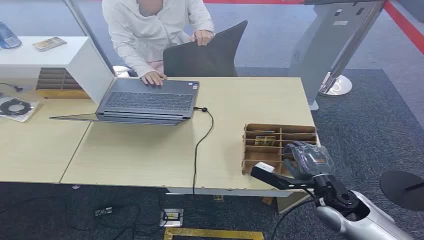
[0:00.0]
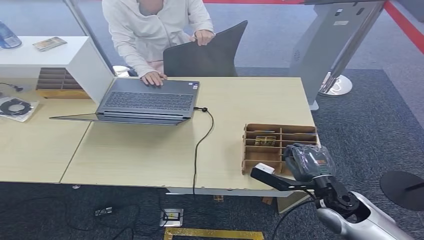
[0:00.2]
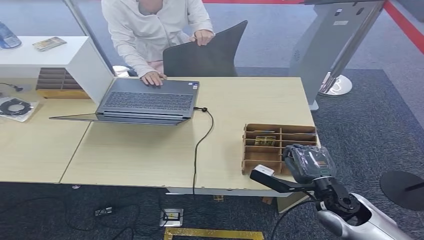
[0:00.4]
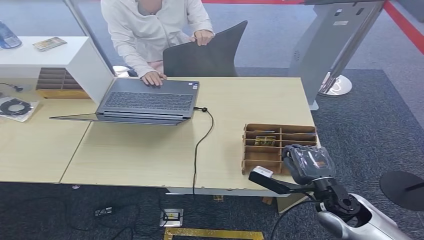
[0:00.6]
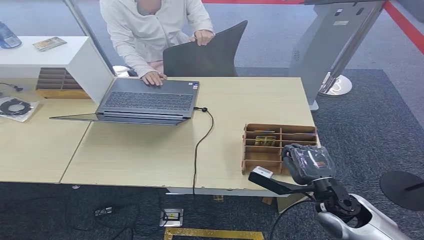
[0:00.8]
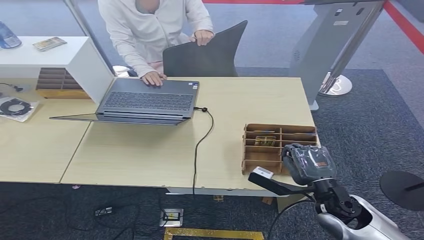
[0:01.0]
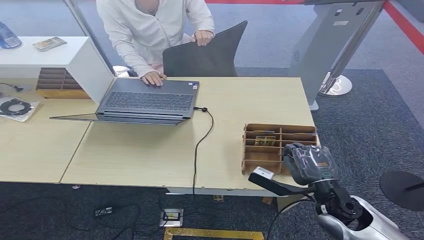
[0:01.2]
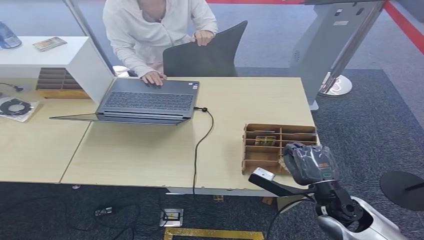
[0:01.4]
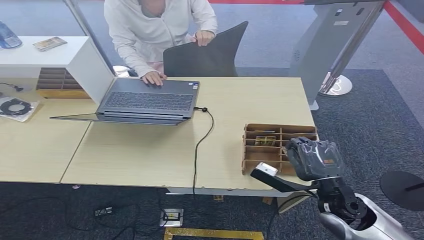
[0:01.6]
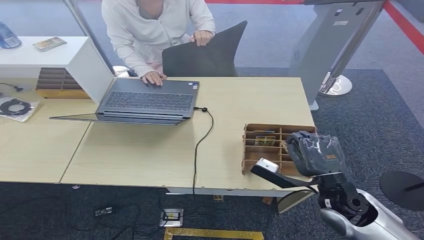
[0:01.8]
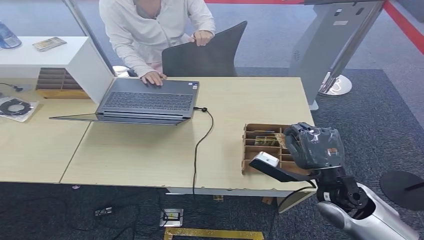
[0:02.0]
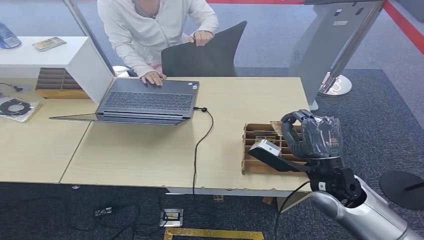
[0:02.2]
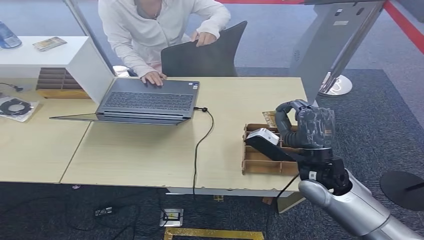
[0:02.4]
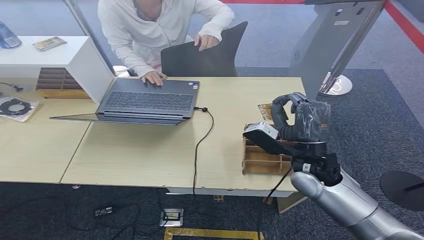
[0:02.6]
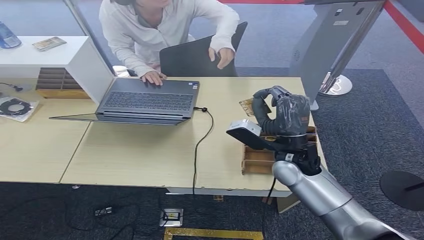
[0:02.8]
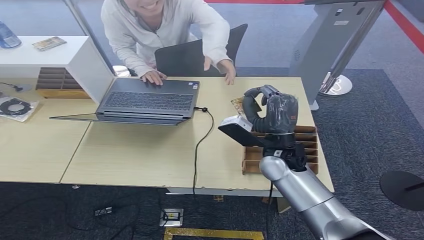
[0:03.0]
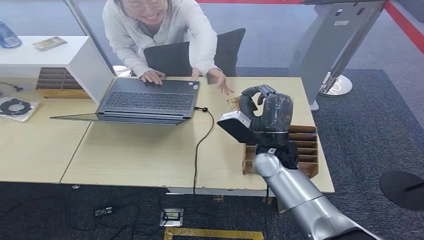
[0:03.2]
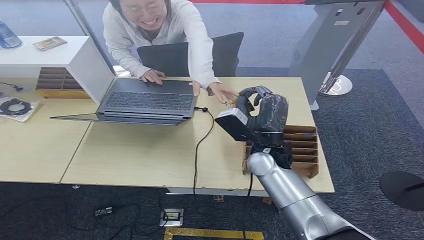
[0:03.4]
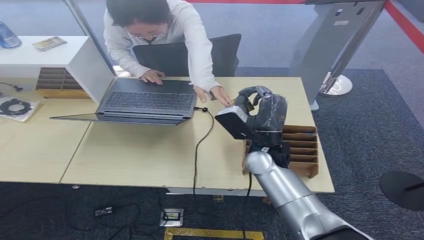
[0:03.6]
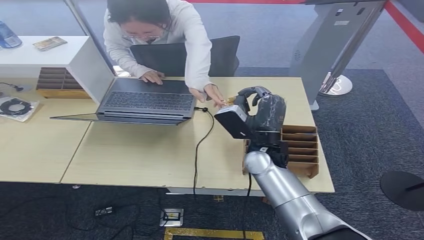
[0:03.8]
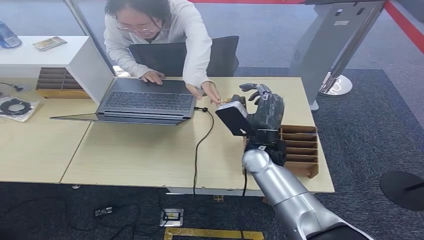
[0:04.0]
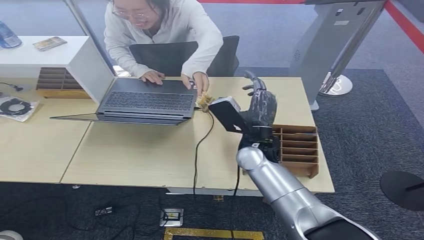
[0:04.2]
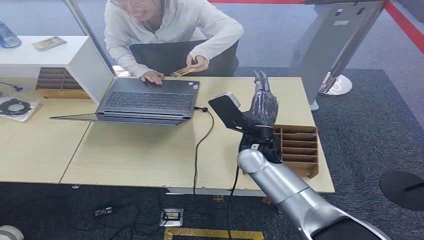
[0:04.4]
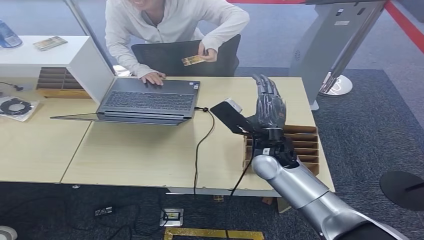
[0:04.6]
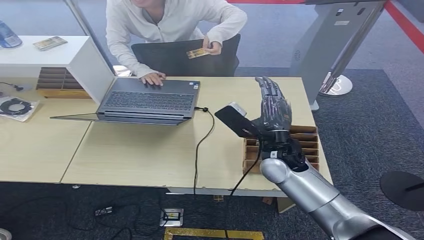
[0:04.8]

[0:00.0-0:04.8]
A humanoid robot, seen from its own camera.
Step, 0:00.0 to 0:02.0: Pick up the key card from the card box.
Step, 0:02.2 to 0:04.8: Hand the key card to the target.
0:01.6 to 0:03.2: The right hand heads to the left, forward and upward, covering approximately 20 cm.

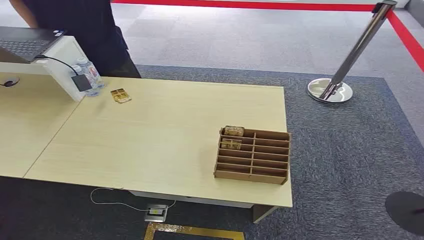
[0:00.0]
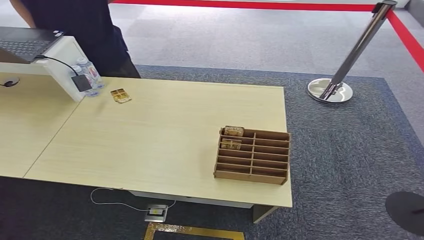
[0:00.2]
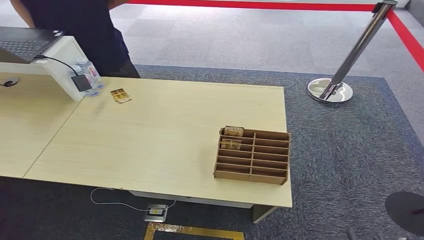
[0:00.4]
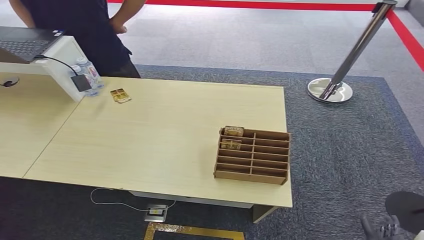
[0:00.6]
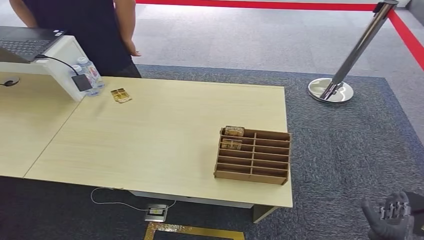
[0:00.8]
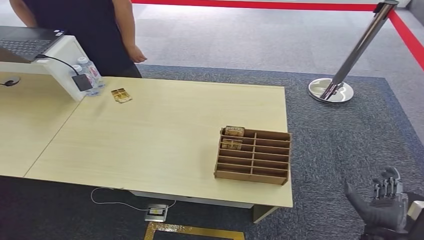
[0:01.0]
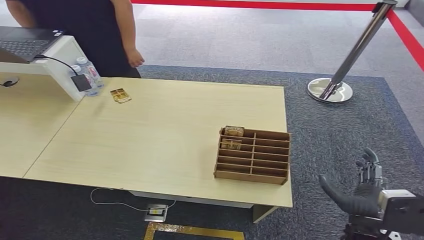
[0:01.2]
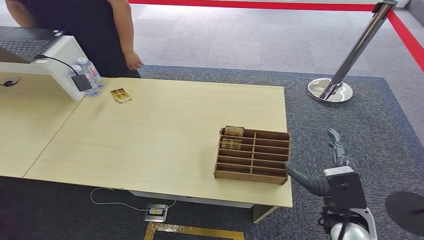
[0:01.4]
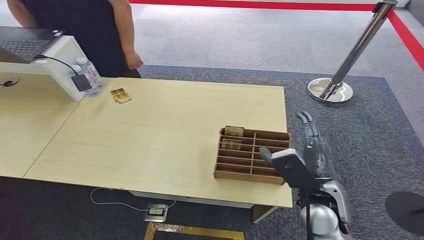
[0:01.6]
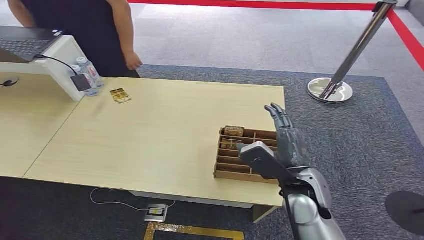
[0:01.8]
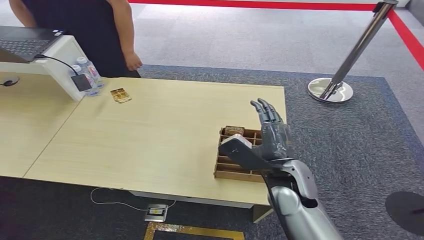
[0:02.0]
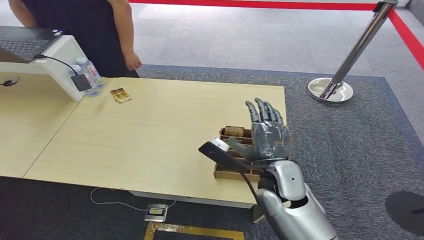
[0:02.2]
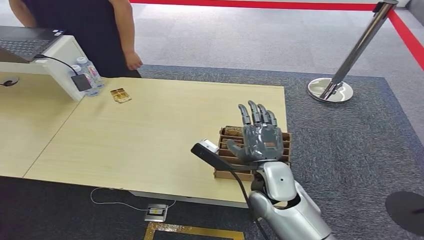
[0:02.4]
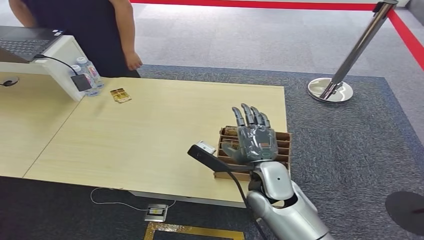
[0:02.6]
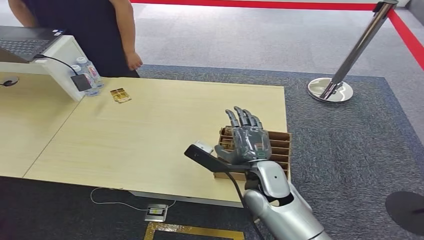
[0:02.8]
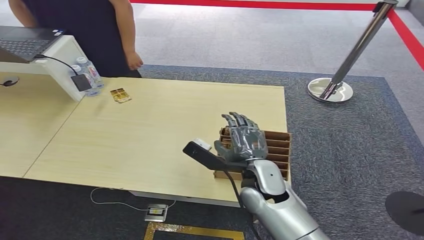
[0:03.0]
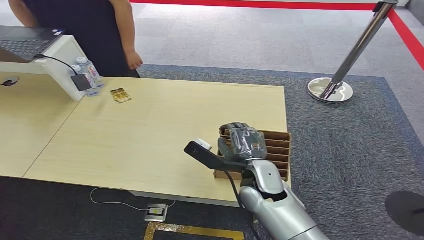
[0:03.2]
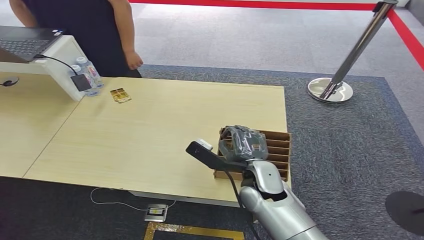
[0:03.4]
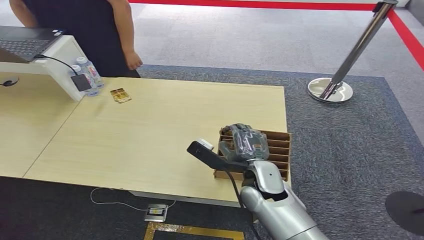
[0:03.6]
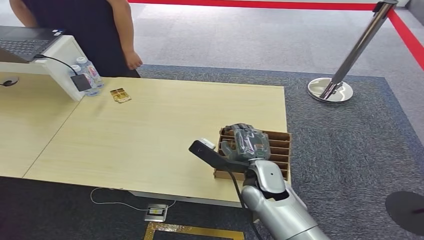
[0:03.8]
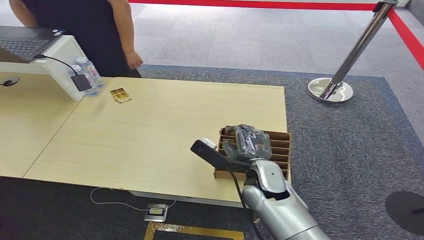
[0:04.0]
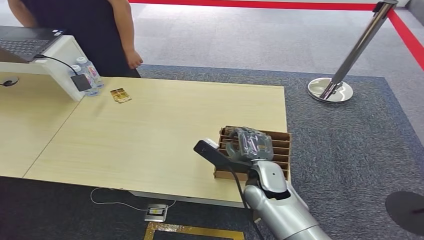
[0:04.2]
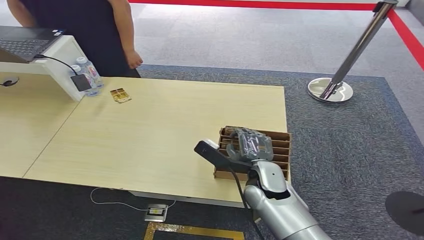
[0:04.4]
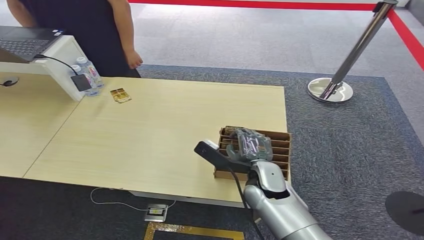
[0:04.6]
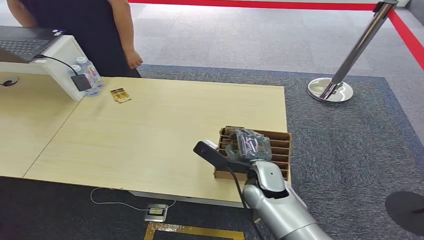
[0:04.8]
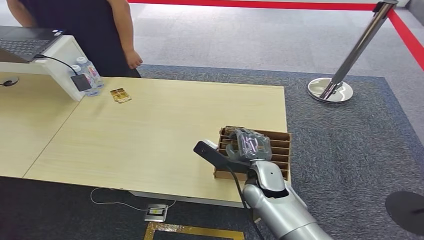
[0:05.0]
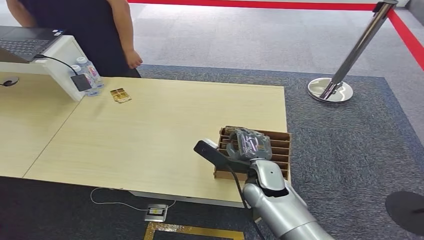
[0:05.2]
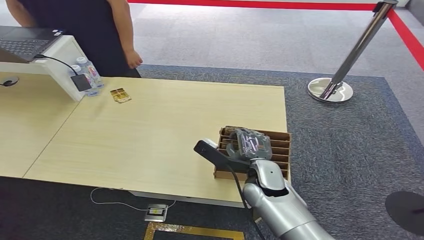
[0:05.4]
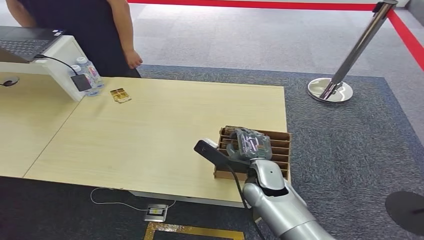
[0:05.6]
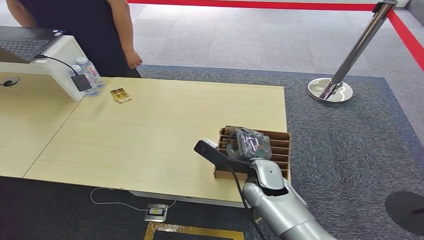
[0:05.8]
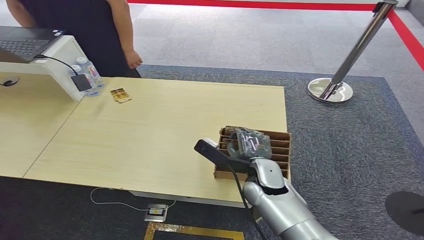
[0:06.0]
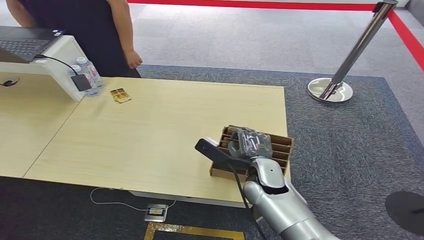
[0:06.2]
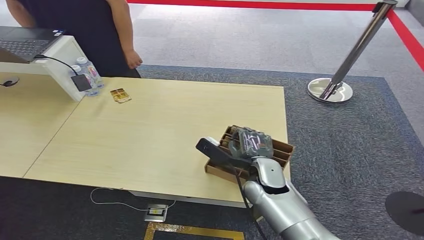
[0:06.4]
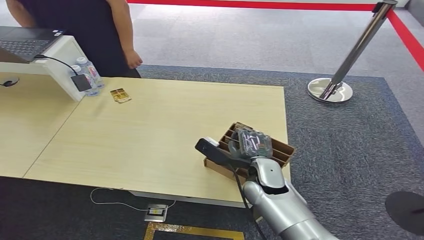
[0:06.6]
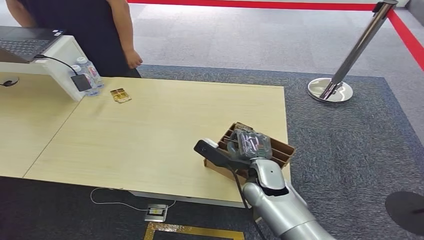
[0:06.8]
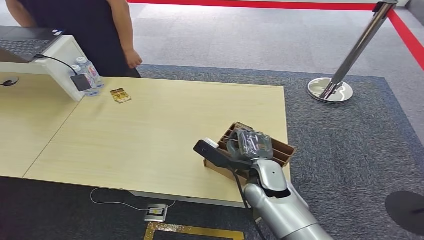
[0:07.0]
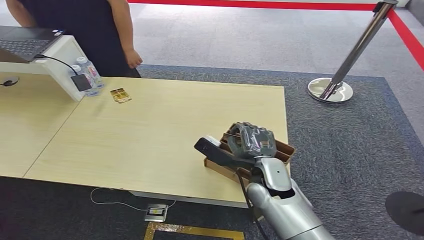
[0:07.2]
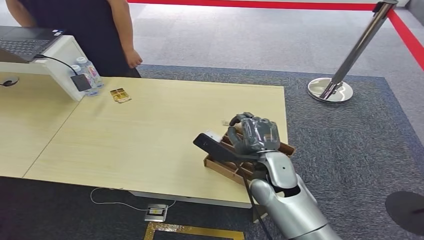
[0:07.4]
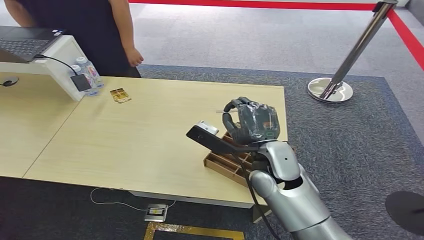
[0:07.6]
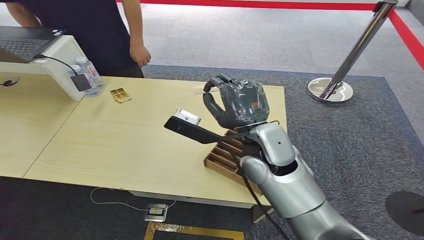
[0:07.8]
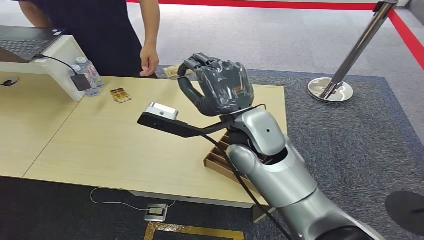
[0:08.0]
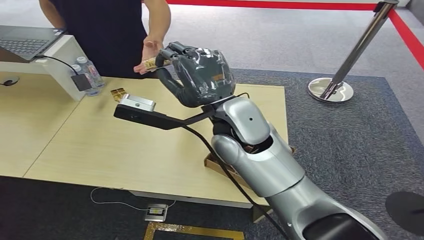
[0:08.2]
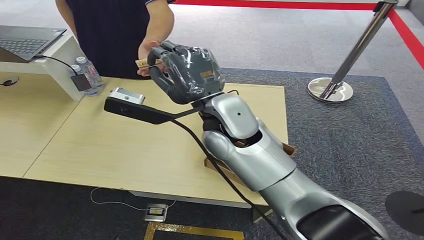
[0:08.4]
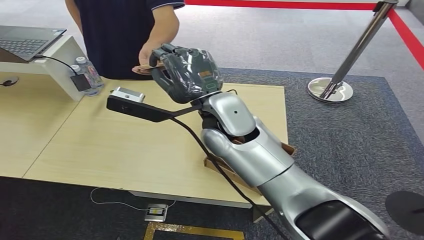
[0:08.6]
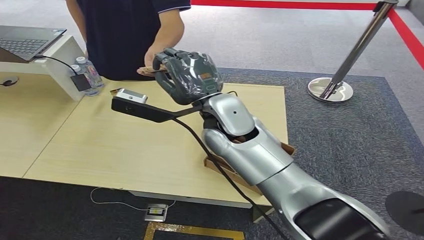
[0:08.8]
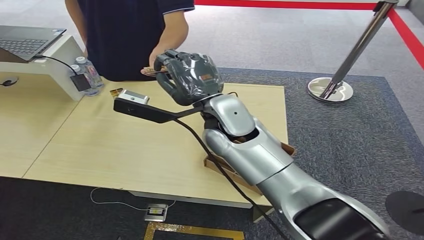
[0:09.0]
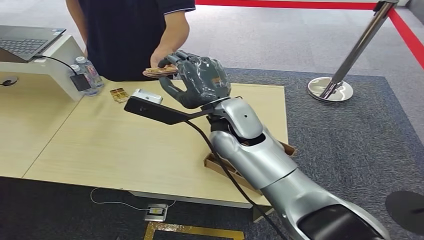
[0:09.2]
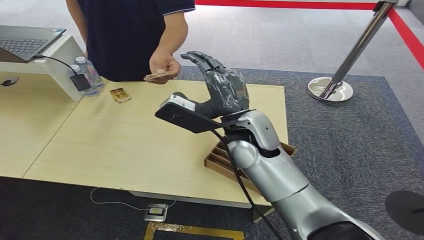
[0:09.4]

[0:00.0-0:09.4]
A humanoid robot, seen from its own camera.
Step, 0:00.0 to 0:07.2: Pick up the key card from the card box.
Step, 0:07.6 to 0:09.4: Hand the key card to the target.
0:01.6 to 0:03.2: The right hand is displaced to the left by roughly 10 cm.
0:03.2 to 0:04.8: There are only small adjustments of the hands.
0:04.8 to 0:06.2: The two hands keep their place.
0:06.2 to 0:07.8: The right hand shifts about 15 cm upward.
